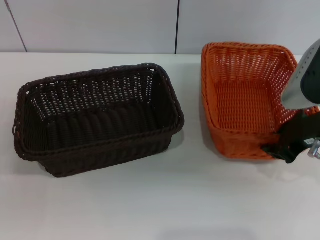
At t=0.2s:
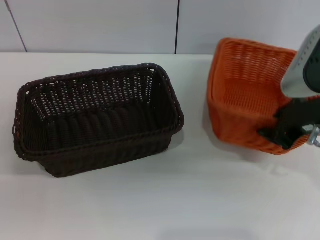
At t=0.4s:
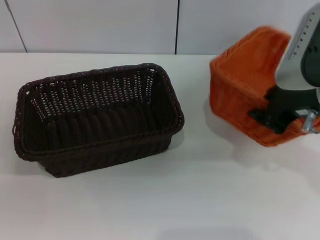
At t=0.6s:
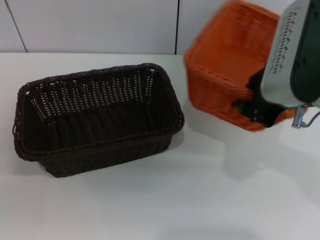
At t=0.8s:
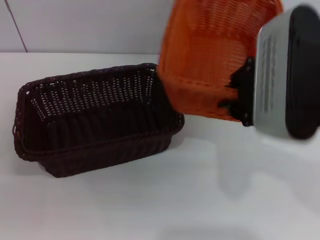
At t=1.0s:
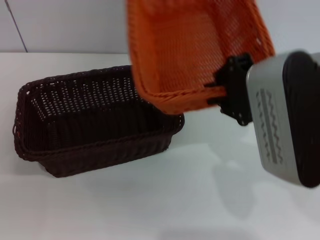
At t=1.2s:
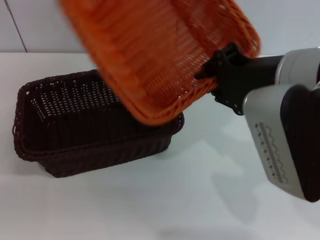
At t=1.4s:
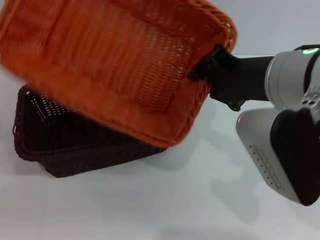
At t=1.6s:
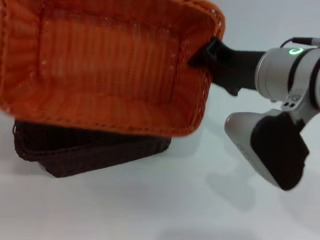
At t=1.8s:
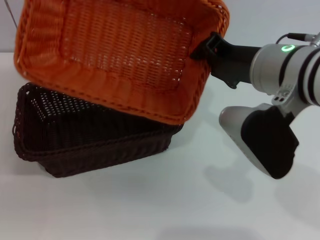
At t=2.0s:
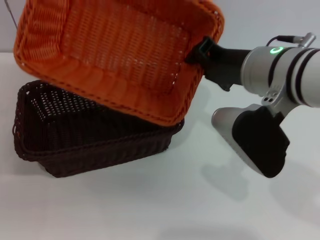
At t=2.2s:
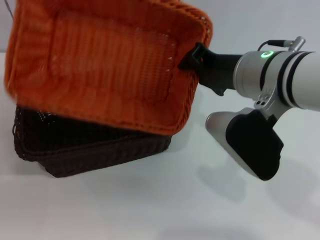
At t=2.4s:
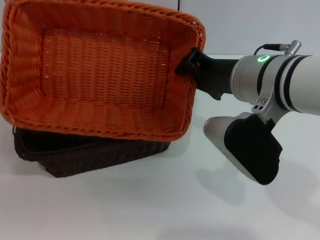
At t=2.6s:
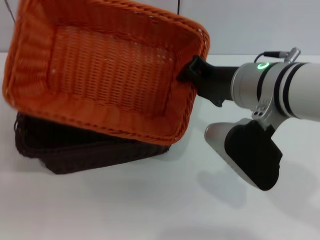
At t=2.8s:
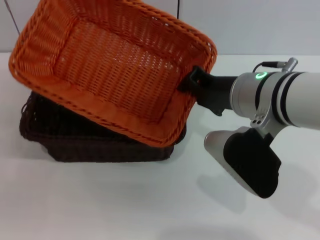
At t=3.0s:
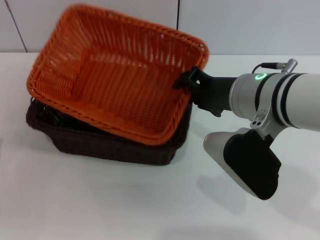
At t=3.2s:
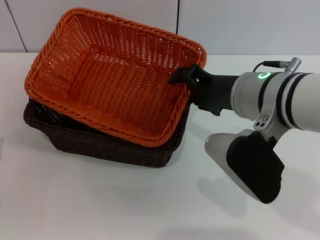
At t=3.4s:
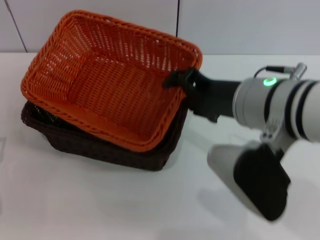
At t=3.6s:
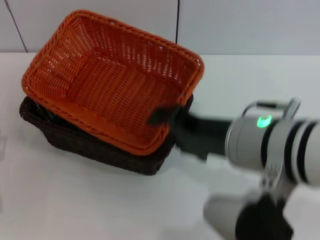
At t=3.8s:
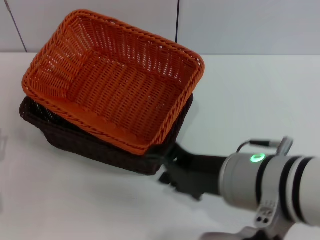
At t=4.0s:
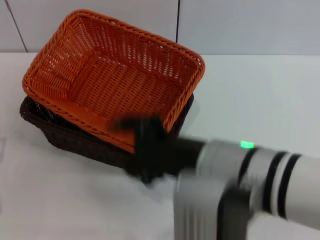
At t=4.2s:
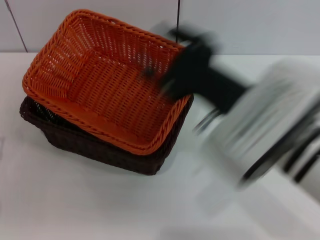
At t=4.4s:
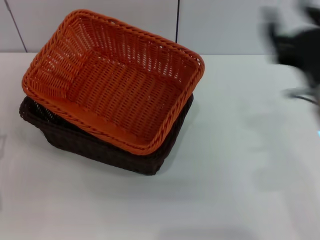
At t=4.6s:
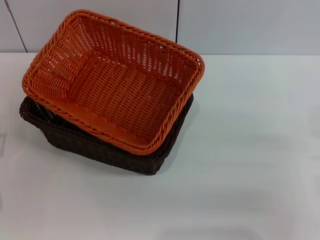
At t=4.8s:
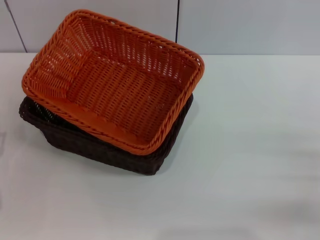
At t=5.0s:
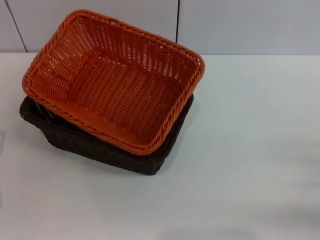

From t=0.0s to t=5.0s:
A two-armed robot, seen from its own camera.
Step, from t=0.2s to t=3.4s: Place the light basket on the dark basket with the right gripper.
From t=0.0s to t=1.6s: The right gripper moves to the left, about 10 cm.
From t=1.6s to t=3.4s: The right gripper opens.
From t=3.4s to t=5.0s: The right gripper moves to the right and downward, approximately 30 cm.
